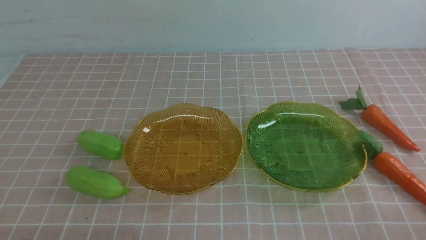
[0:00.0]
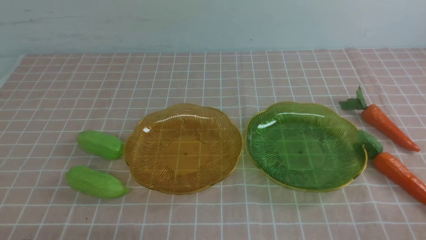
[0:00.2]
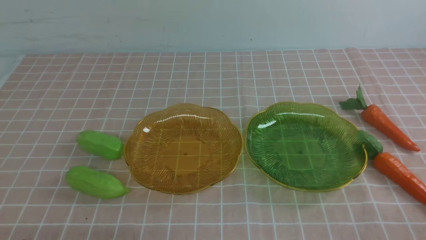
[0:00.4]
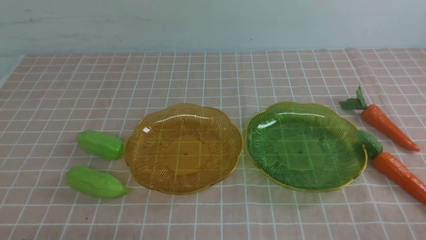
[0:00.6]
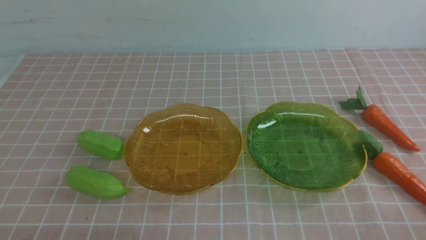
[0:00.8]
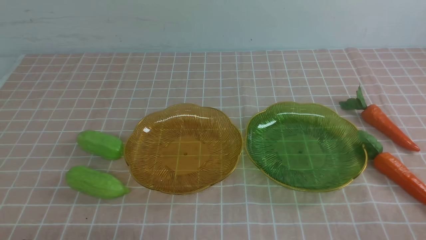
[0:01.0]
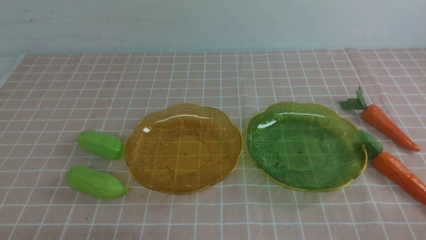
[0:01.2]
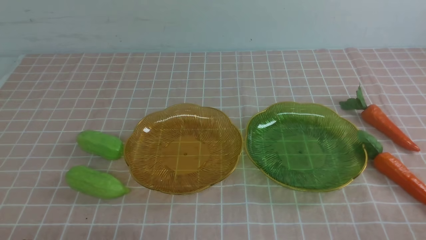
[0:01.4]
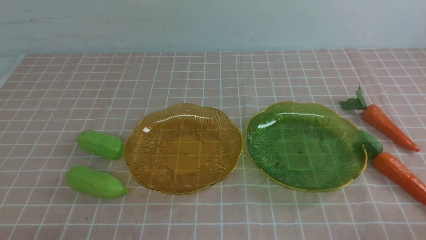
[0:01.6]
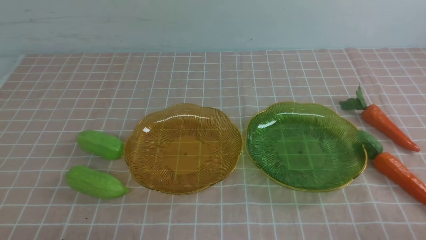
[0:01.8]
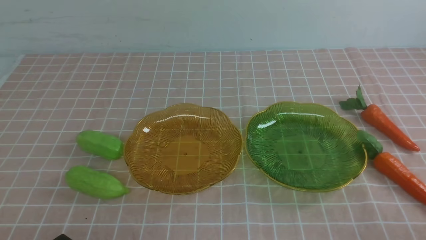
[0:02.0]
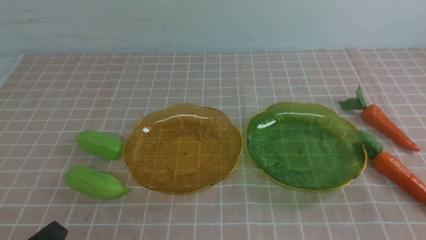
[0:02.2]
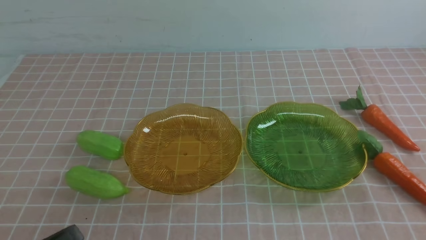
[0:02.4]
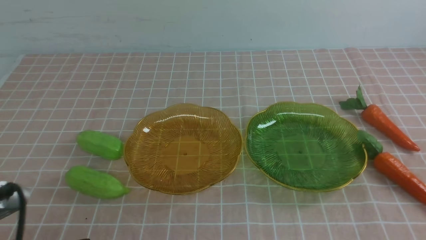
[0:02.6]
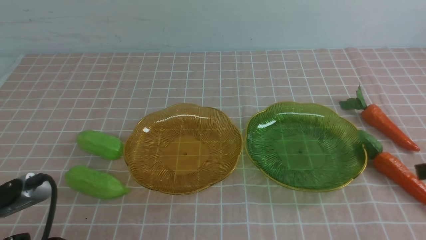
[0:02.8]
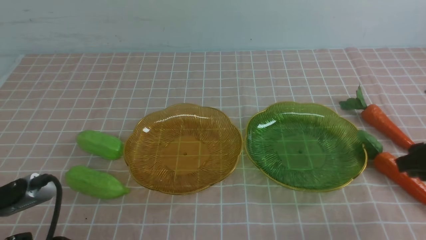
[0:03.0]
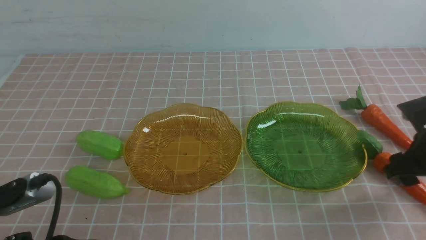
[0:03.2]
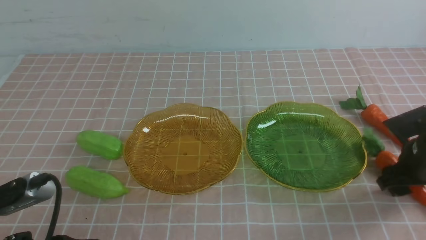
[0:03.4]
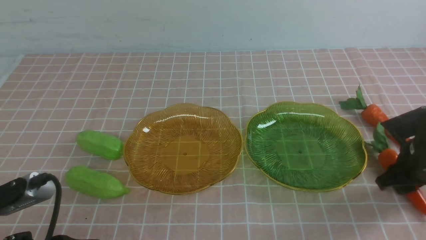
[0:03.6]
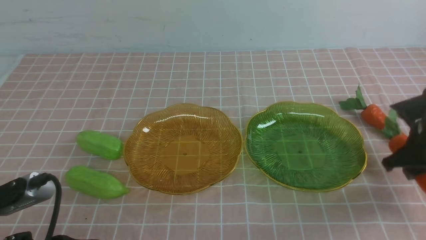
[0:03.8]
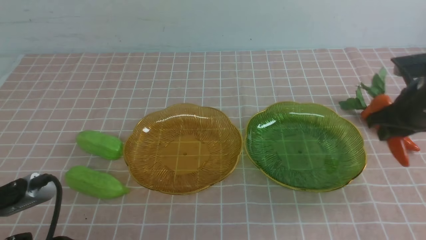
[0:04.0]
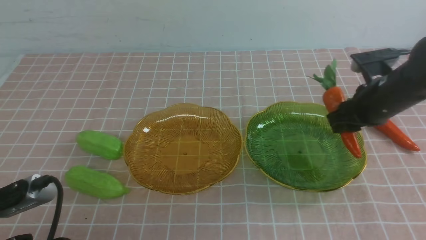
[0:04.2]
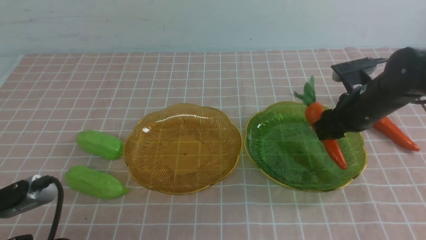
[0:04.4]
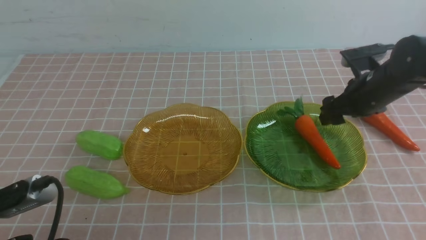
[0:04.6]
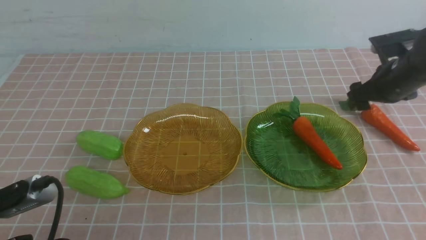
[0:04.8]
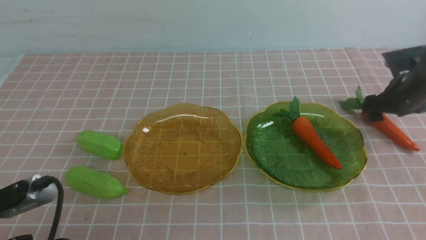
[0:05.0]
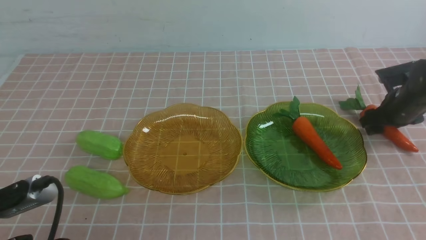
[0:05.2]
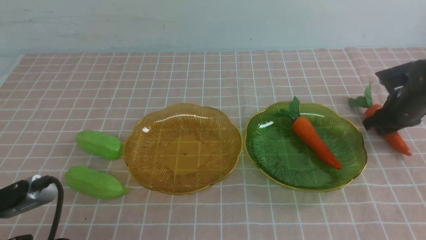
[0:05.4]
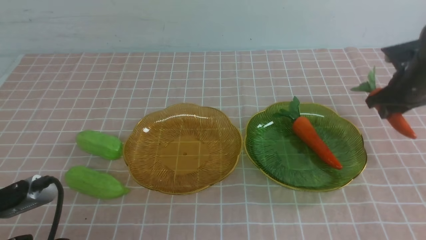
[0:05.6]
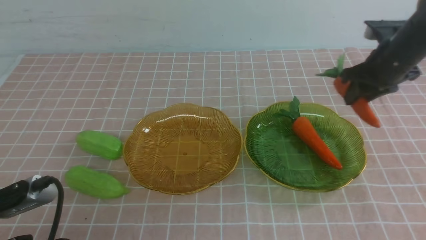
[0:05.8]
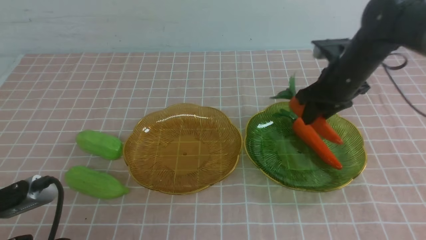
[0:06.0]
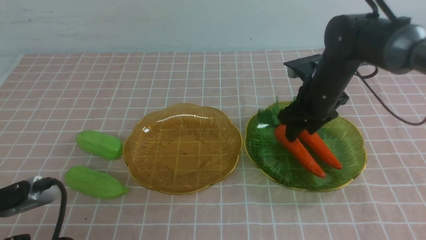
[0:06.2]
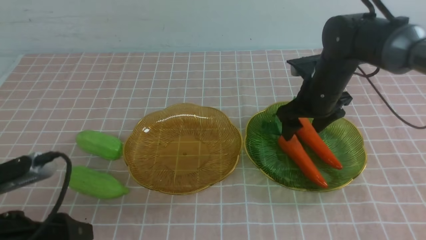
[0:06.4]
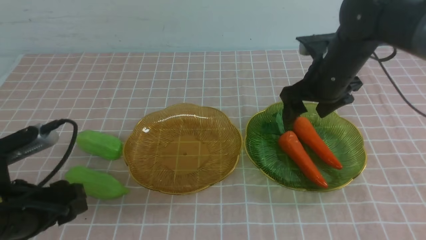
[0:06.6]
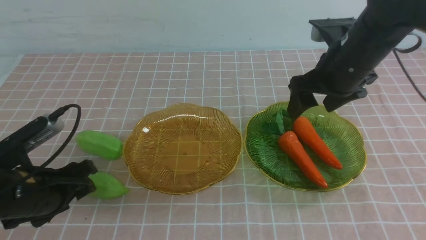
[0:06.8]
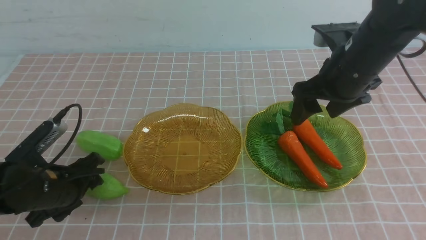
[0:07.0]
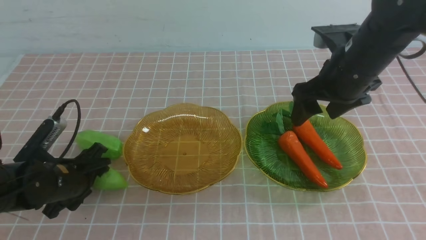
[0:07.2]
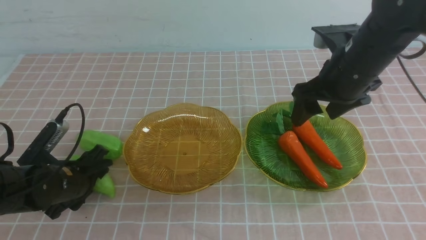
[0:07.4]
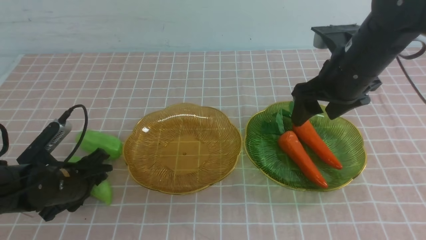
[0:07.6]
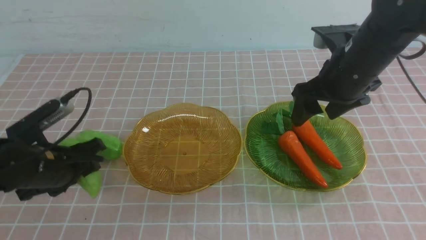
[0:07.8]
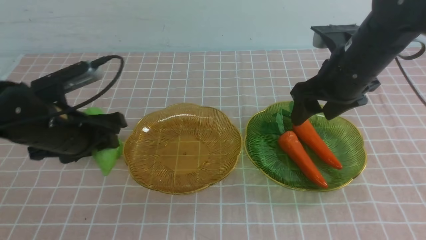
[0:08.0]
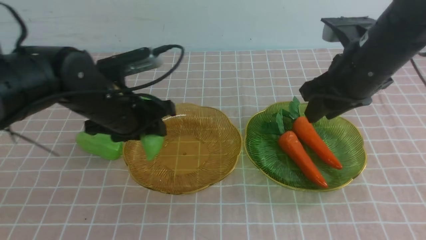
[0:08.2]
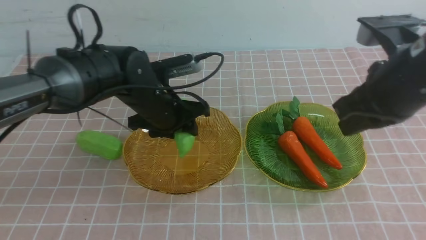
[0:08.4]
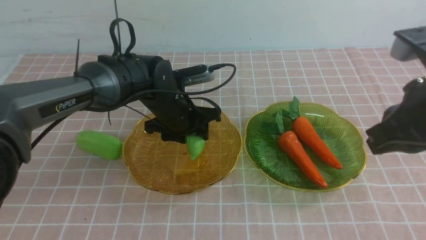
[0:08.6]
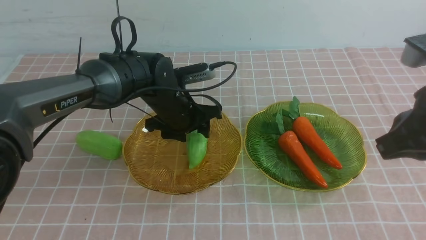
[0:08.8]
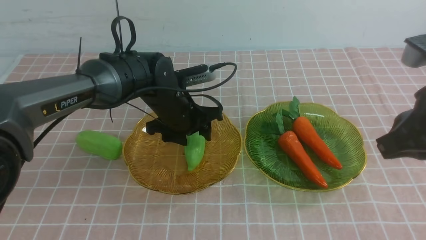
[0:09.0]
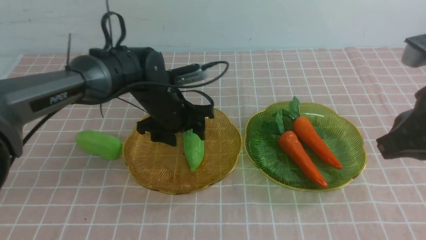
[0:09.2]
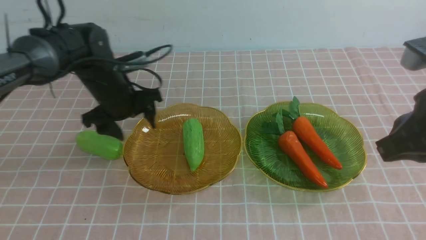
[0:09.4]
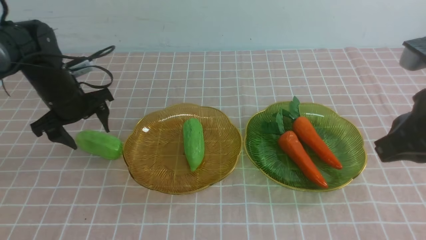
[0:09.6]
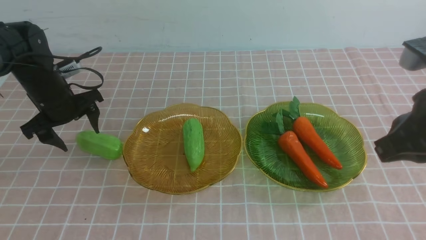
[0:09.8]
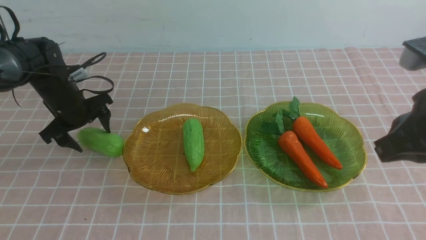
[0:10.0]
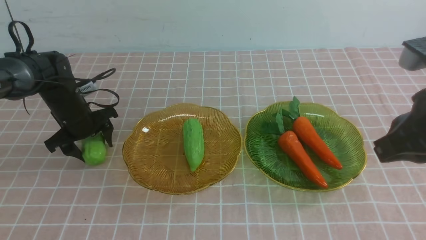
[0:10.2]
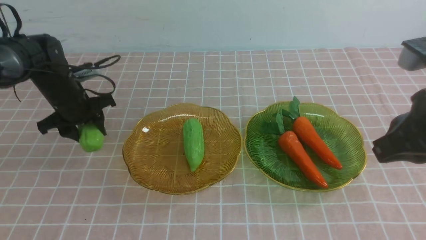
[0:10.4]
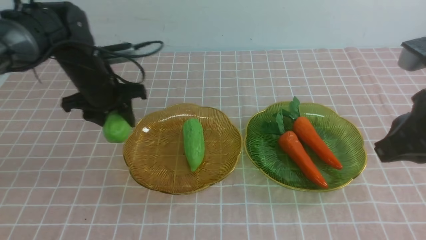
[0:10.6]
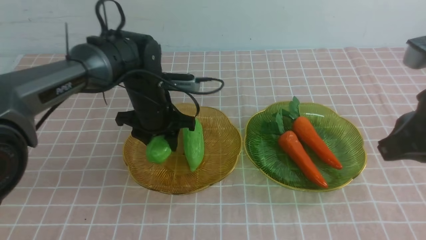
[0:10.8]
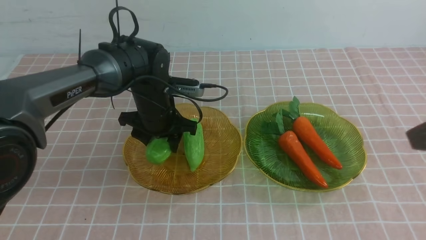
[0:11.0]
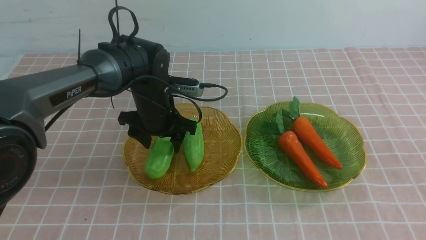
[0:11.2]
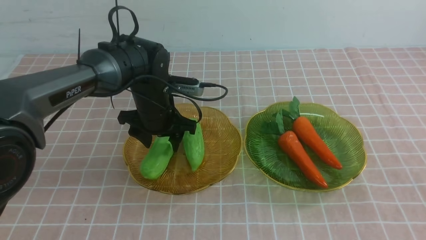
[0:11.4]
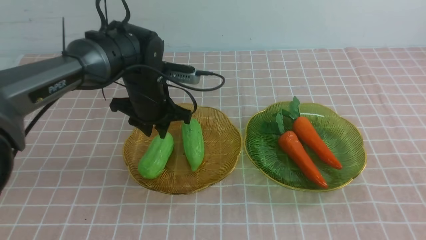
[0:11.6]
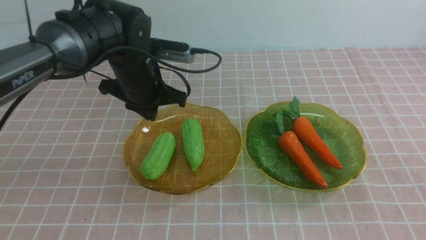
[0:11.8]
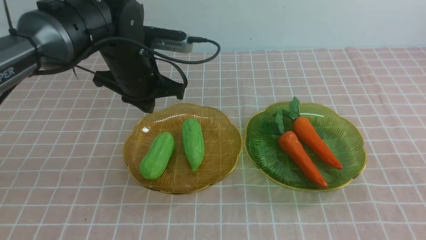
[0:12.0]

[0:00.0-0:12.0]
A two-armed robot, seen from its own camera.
Step, 0:00.0 to 0:04.4: use the right arm to grab a carrot and put it into the right plate.
Step, 0:04.6 to 0:06.4: use the right arm to grab a carrot and put it into the right plate.
Step, 0:06.6 to 0:09.0: use the left arm to grab a chayote and put it into the left plate.
Step, 0:09.4 to 0:11.4: use the left arm to grab a chayote and put it into the left plate.
0:01.6 to 0:03.0: The right gripper shifts some 20 cm forward and upward, and opens its fingers; the left gripper moves upward, about 5 cm.
0:03.0 to 0:04.4: The right gripper goes about 15 cm forward and to the left.
0:04.4 to 0:06.0: The right gripper goes to the right and returns, about 10 cm each way, and opens and closes again.
0:06.0 to 0:07.6: The right gripper moves backward and upward, roughly 10 cm; the left gripper travels forward by some 20 cm.
0:07.6 to 0:09.0: The left gripper goes approximately 15 cm forward and to the left, and opens up; the right gripper is displaced backward by about 15 cm, and closes.
0:09.0 to 0:10.4: The left gripper goes approximately 15 cm to the right. The right gripper is displaced backward by about 10 cm.
0:10.4 to 0:12.0: The left gripper is displaced upward by some 15 cm, and closes up. The right gripper goes some 15 cm downward and backward.

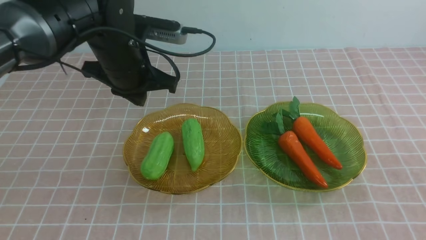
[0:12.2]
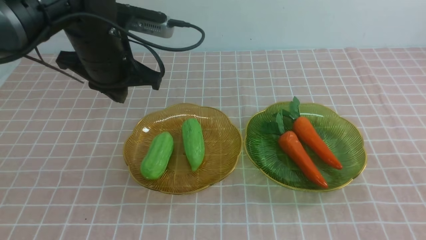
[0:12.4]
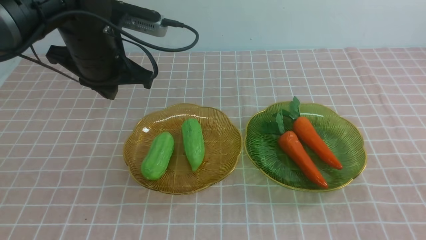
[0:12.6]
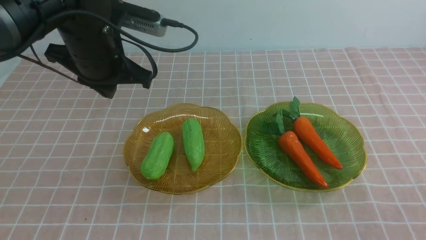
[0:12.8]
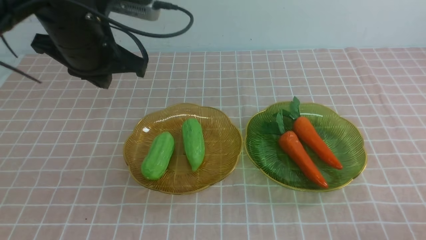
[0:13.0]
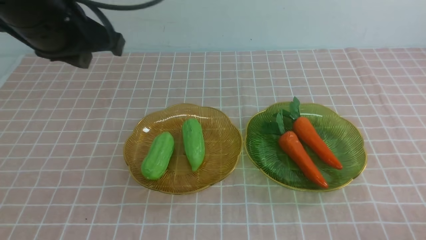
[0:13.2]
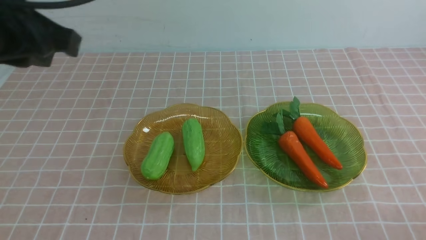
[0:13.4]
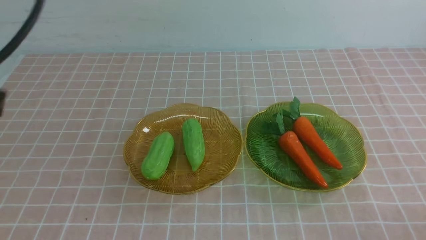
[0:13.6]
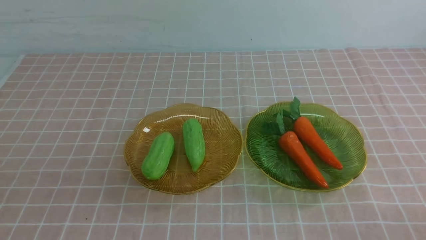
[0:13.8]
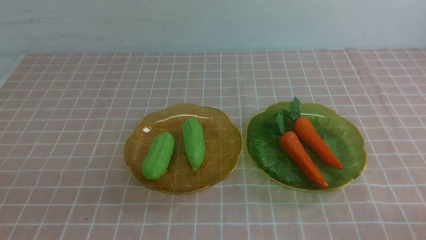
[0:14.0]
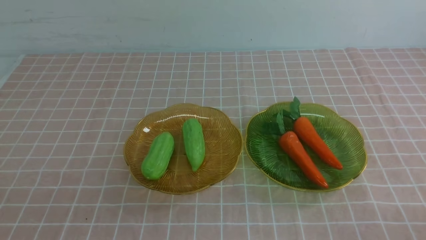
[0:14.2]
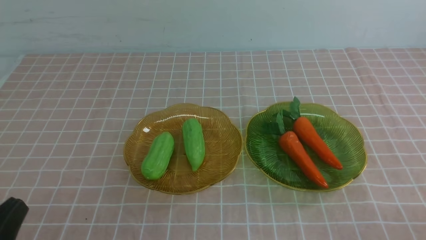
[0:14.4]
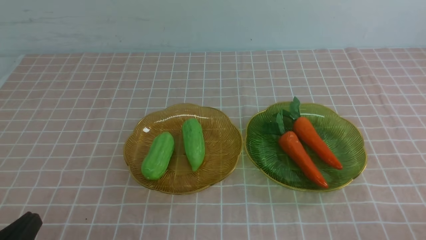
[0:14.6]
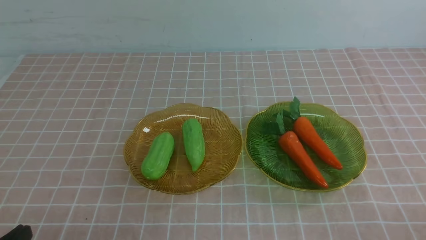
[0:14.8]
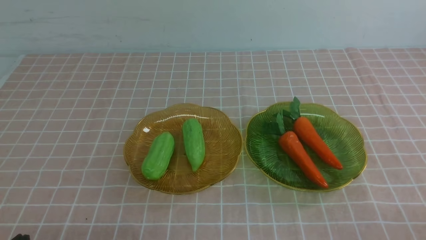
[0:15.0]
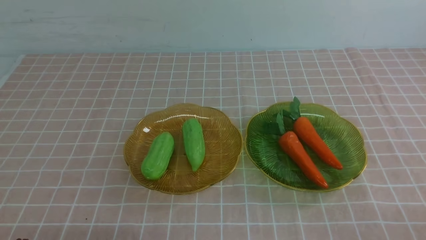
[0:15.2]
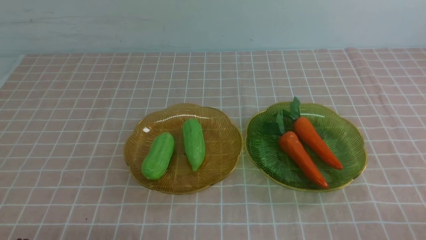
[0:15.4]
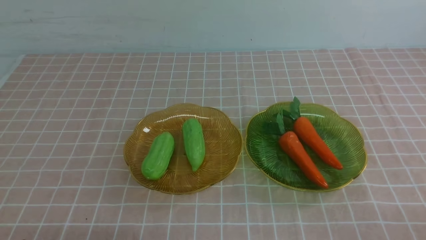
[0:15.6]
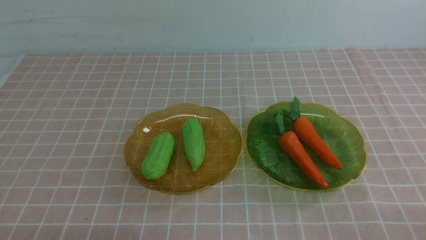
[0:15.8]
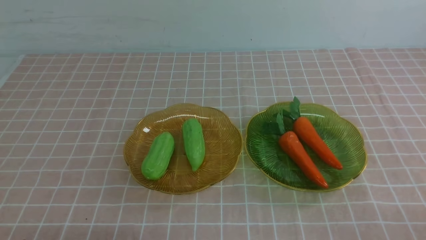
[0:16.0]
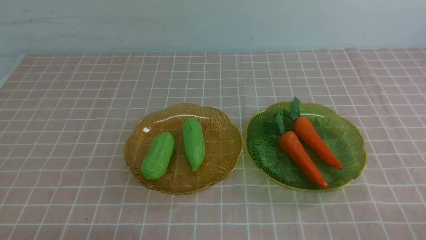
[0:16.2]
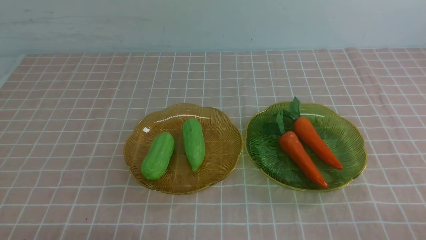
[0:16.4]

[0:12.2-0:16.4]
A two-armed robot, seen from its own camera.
0:12.2 to 0:13.6: The right gripper travels downward by some 5 cm. Meanwhile the left gripper travels backward by some 30 cm.
0:13.6 to 0:15.0: The left gripper is displaced downward by some 15 cm.
0:15.0 to 0:16.4: Both grippers stay about where they are.
